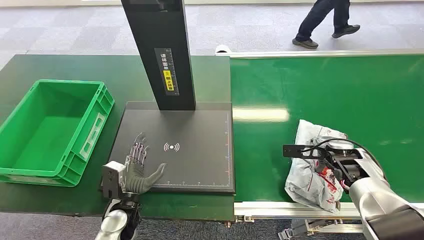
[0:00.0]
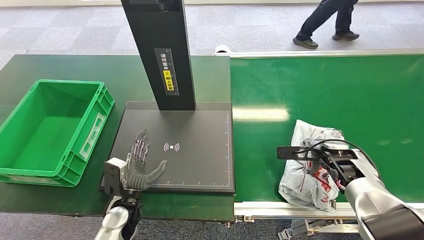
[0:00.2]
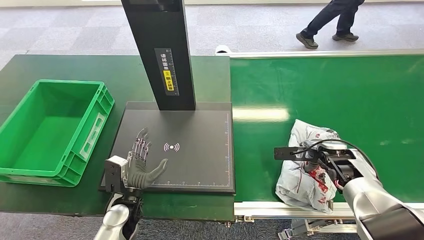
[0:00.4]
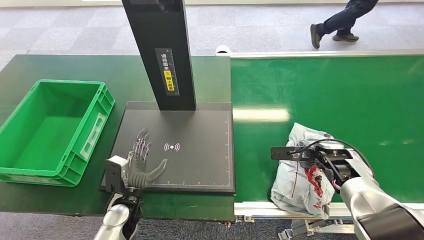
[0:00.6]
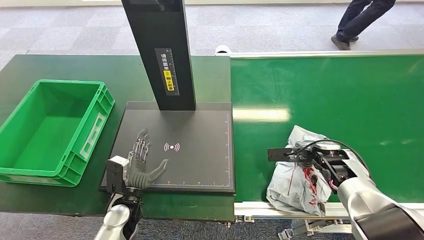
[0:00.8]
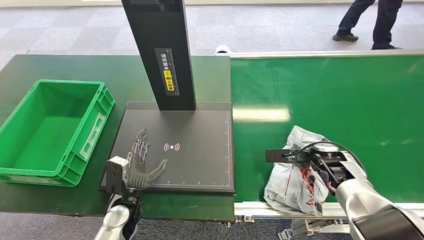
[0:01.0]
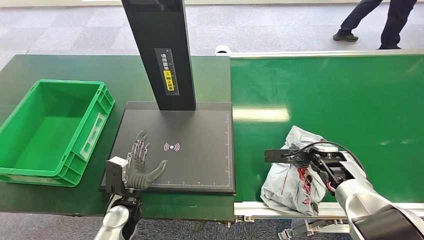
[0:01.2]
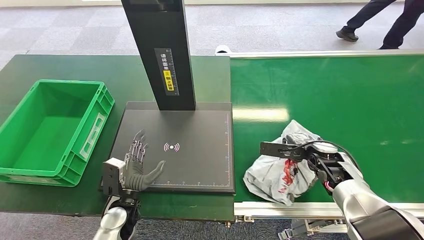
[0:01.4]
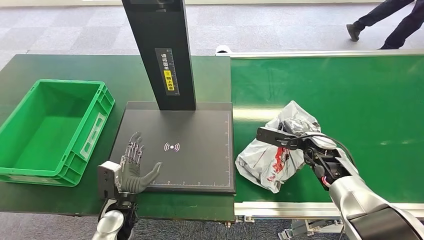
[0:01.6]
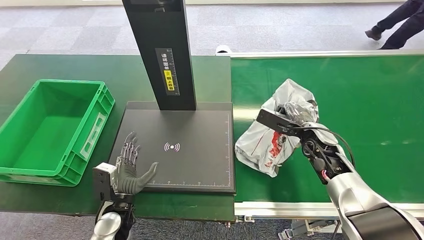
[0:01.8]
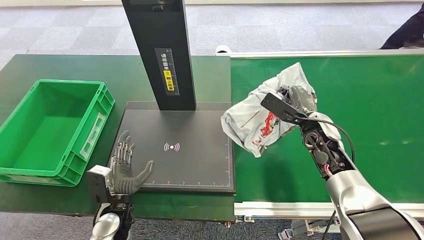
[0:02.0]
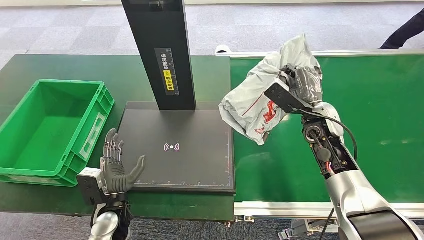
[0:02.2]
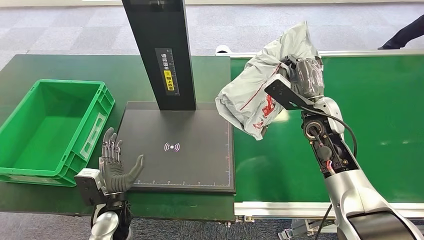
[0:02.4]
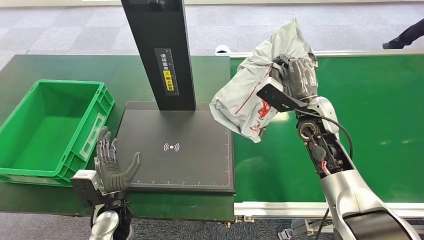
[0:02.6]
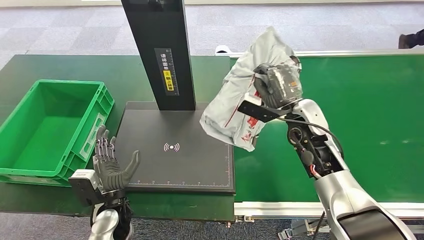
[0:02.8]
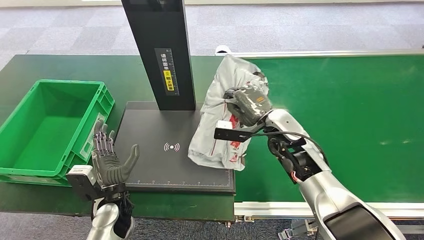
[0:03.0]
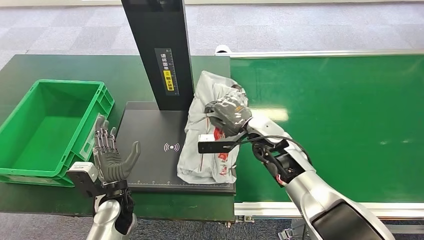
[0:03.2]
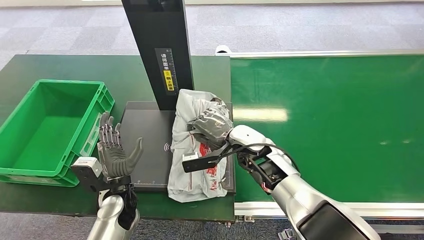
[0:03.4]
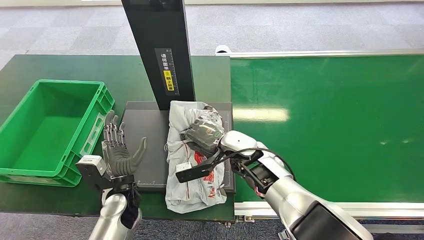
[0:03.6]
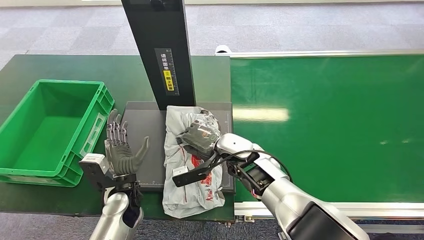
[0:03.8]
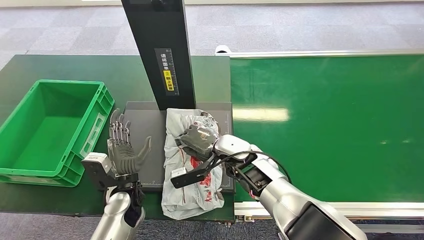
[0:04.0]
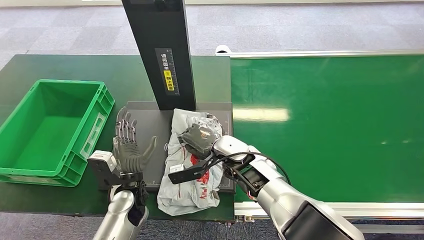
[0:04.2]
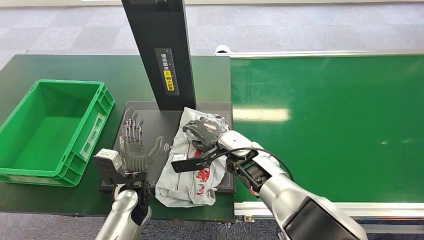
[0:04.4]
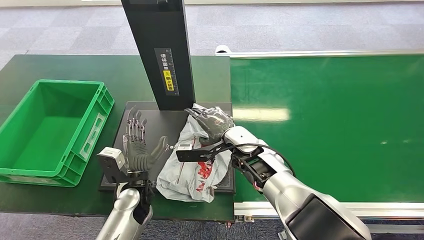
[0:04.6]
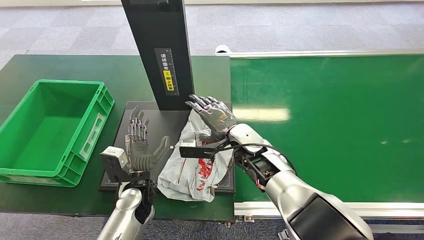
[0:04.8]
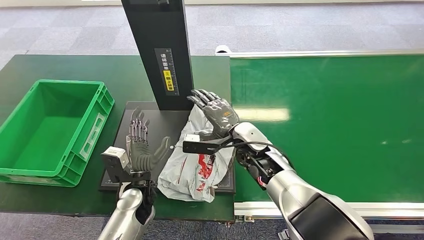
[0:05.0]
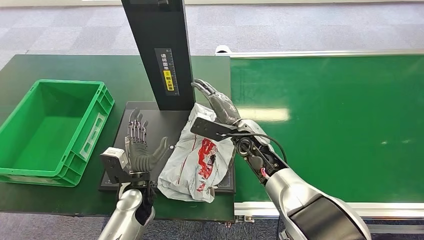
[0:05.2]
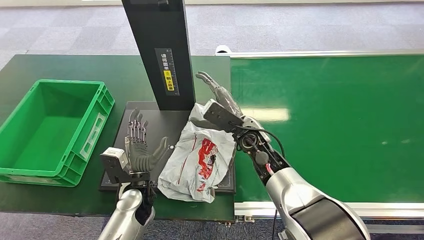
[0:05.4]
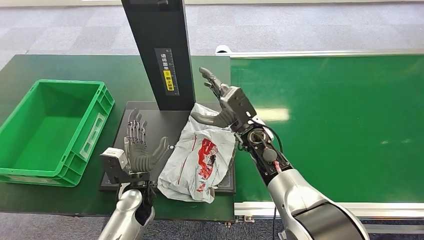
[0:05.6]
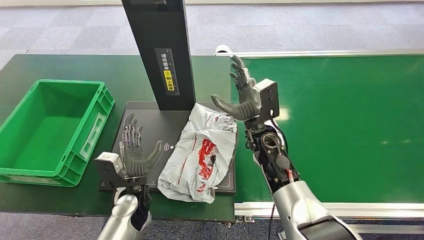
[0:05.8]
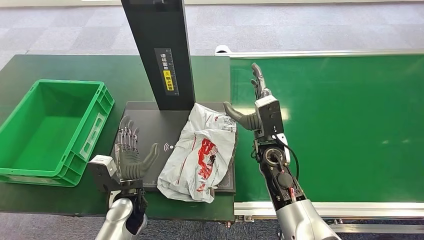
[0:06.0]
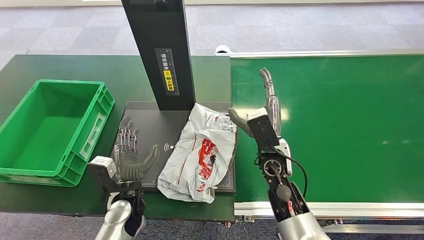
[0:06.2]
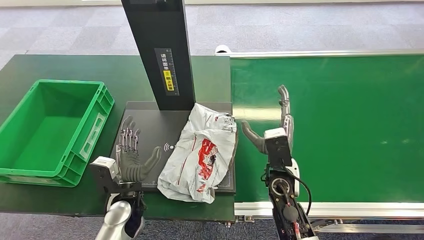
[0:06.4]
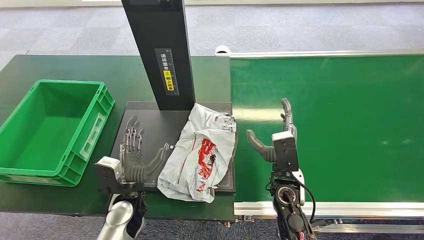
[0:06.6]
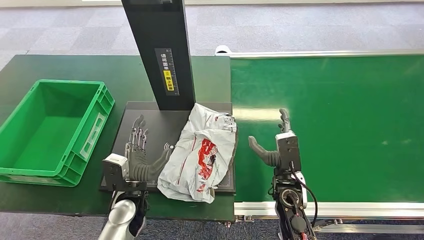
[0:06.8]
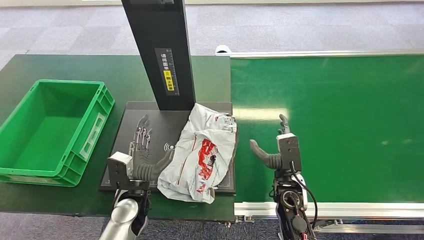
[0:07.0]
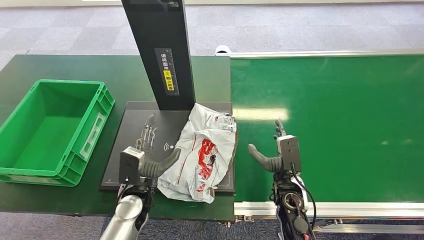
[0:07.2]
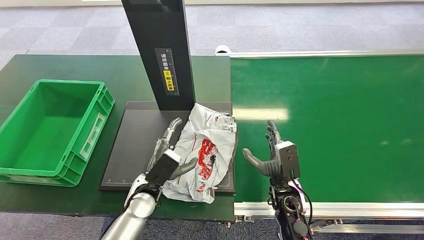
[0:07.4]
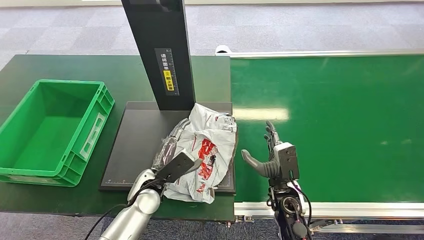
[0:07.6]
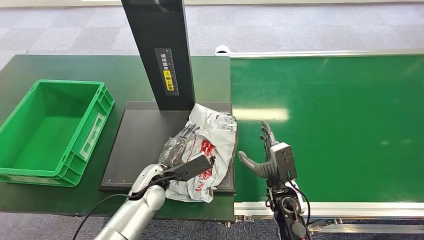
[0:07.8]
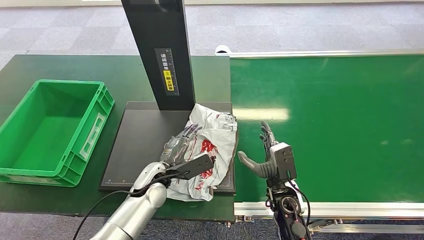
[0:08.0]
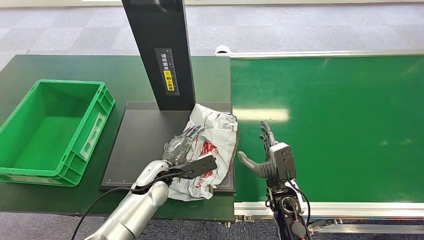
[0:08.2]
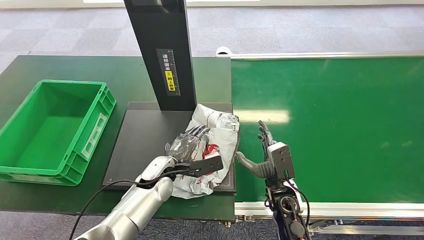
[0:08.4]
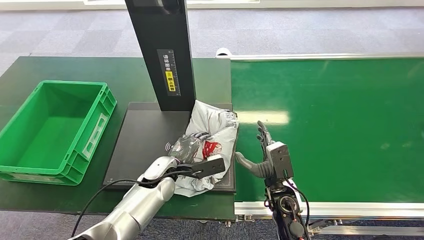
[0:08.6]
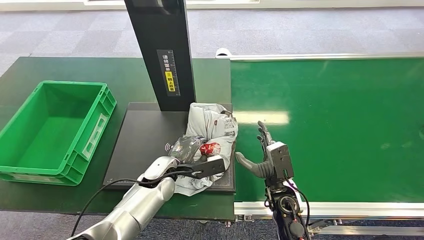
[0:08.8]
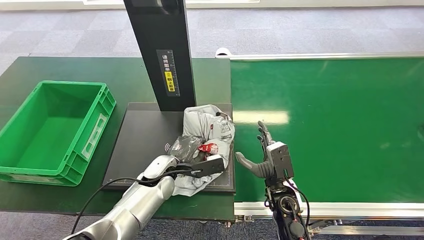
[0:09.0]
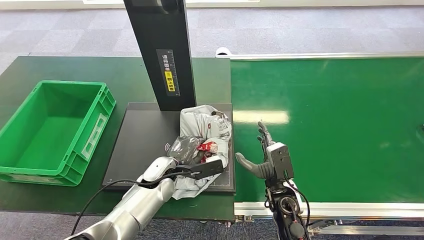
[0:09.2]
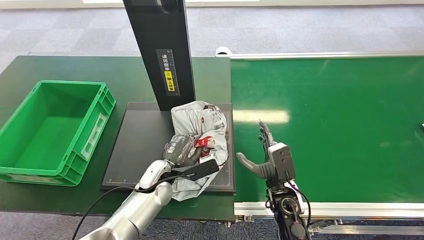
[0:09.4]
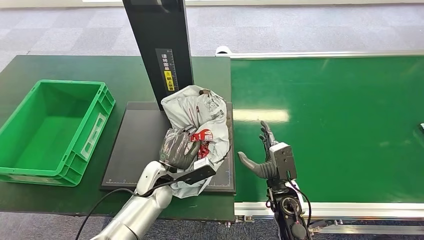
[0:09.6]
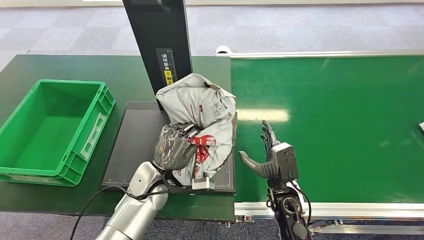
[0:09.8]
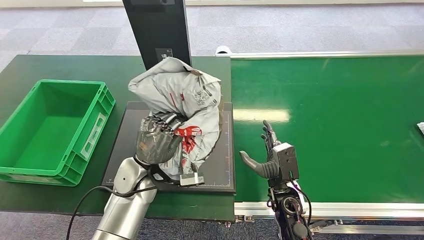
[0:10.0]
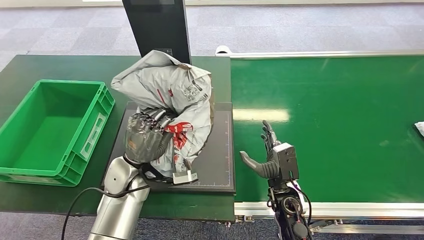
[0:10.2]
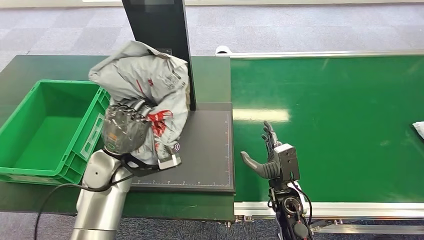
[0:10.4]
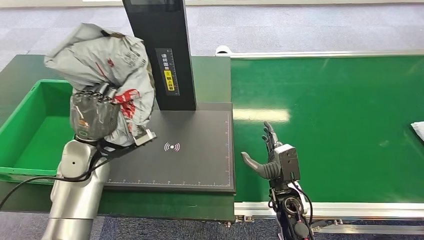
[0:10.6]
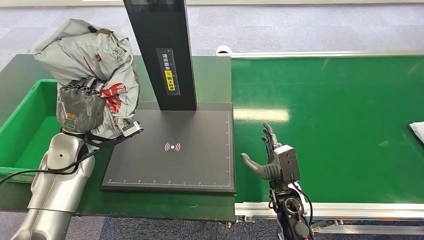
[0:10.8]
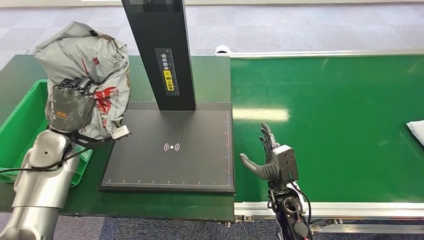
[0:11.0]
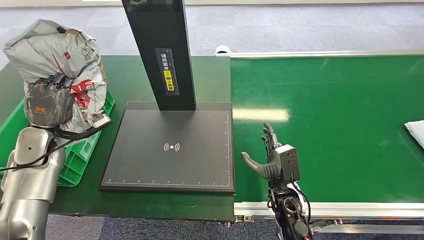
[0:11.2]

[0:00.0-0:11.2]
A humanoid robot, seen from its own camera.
Step, 0:00.0 to 0:02.2: Pick up the package from the conveyor belt.
Step, 0:02.4 to 0:05.6: Place the package onto the inbound machine.
Step, 0:05.8 to 0:10.6: Pick up the package from the inbound machine.
0:03.2 to 0:04.8: The left hand changes place by some 5 cm.
0:04.8 to 0:06.4: The right hand moves backward and to the right, some 10 cm.
0:06.4 to 0:08.0: The right hand goes approximately 5 cm downward. Meanwhile the left hand heads forward, covering about 5 cm.

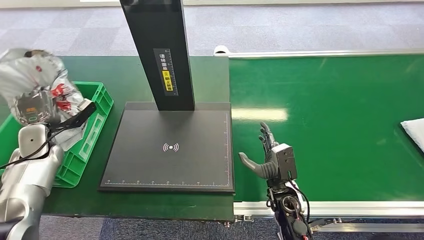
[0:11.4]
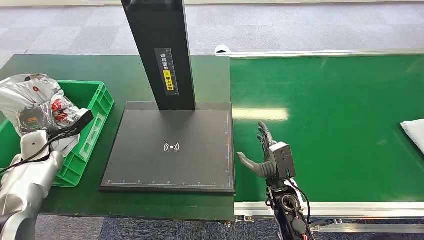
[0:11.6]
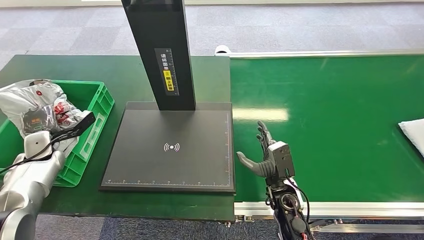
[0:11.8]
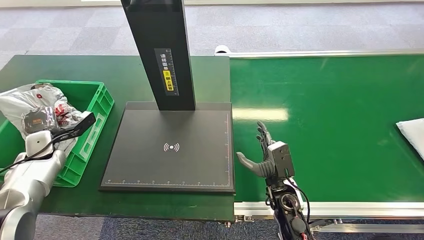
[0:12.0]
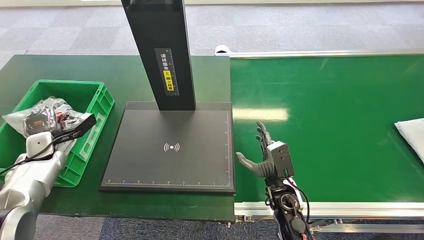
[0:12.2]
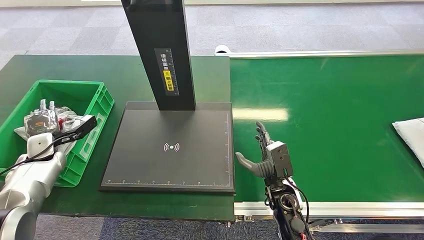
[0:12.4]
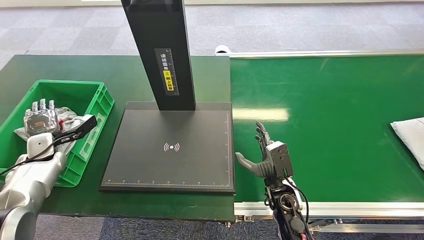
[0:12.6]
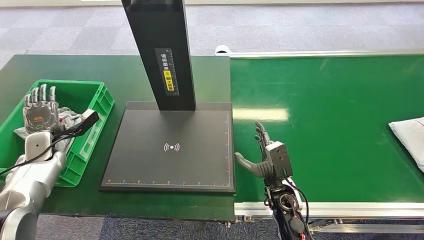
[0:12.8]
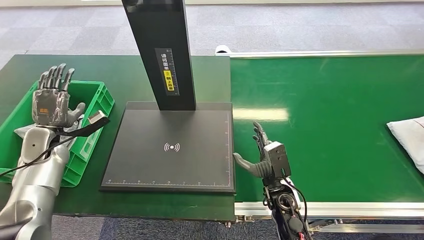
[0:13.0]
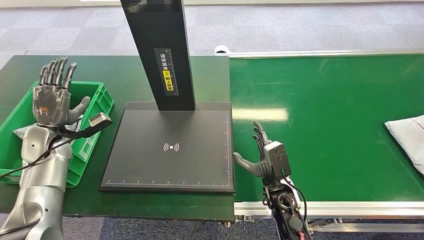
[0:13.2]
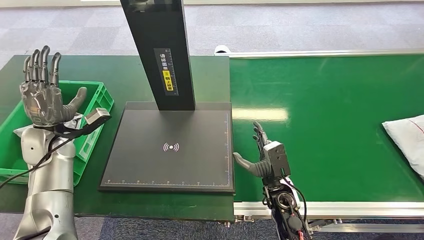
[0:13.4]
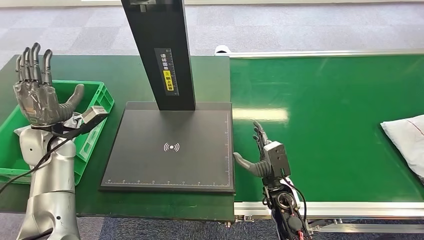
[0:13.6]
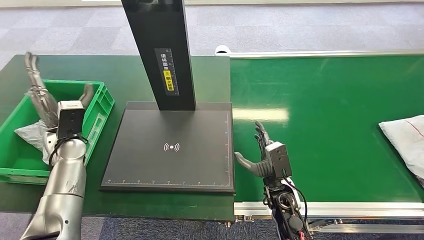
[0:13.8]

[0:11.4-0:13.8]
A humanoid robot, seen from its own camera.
Step, 0:11.4 to 0:13.8: Place the package into the parcel locker.
0:12.6 to 0:13.8: The left hand travels to the right and upward by some 10 cm.

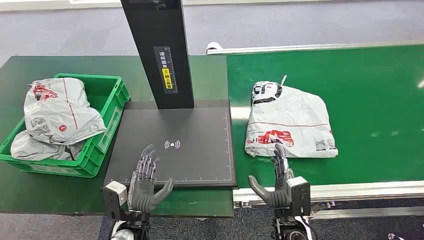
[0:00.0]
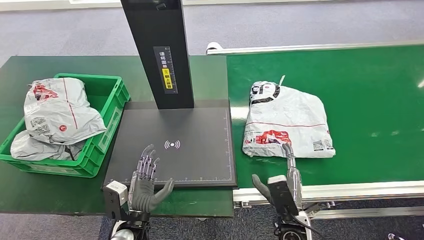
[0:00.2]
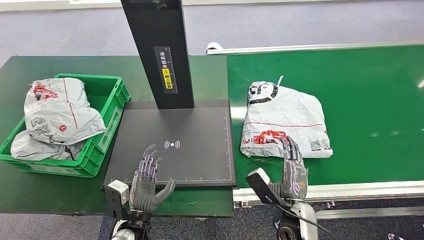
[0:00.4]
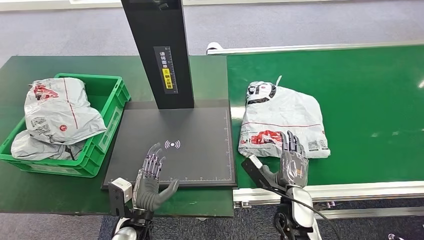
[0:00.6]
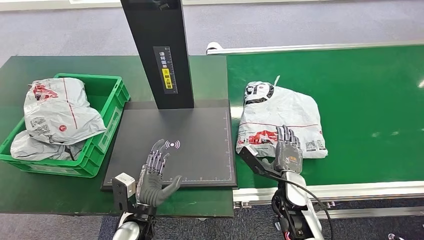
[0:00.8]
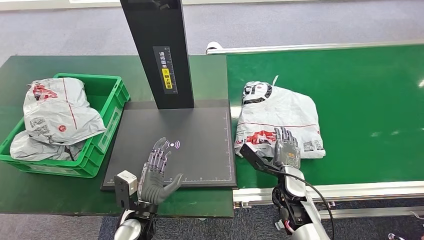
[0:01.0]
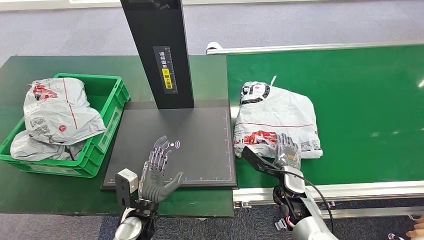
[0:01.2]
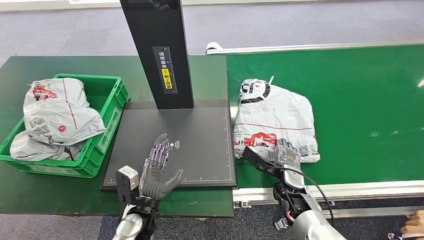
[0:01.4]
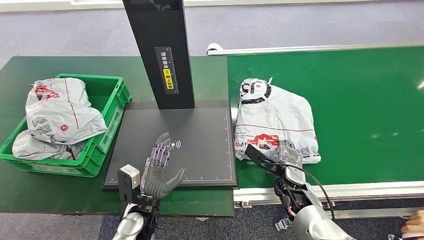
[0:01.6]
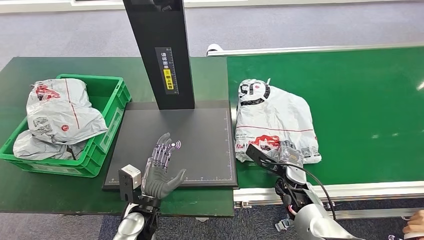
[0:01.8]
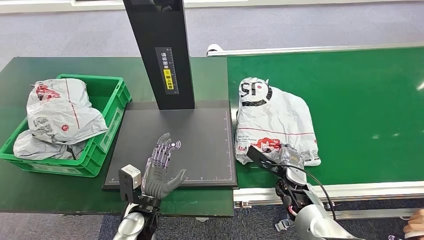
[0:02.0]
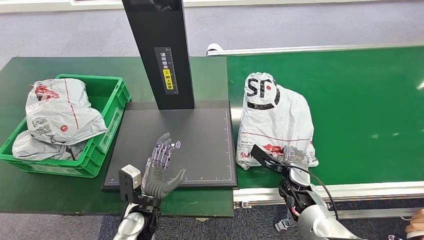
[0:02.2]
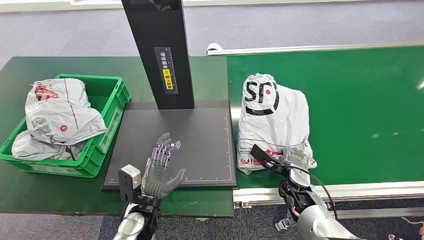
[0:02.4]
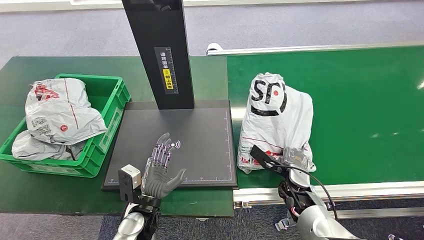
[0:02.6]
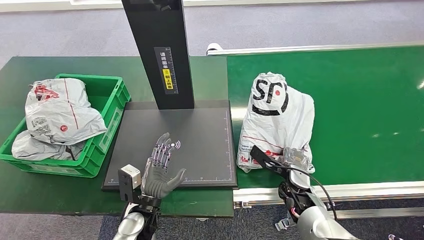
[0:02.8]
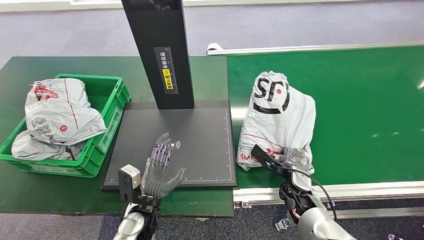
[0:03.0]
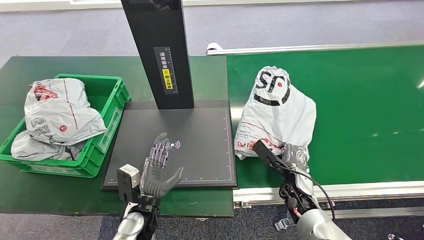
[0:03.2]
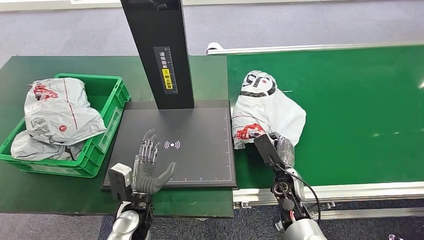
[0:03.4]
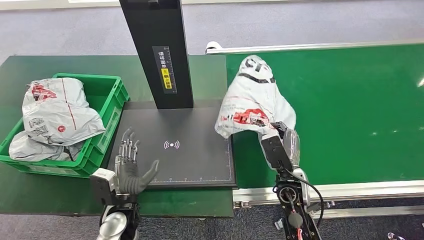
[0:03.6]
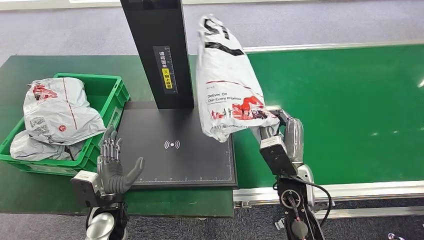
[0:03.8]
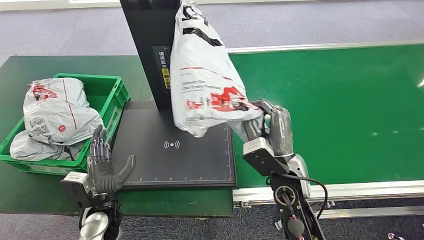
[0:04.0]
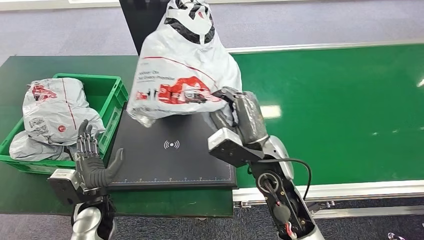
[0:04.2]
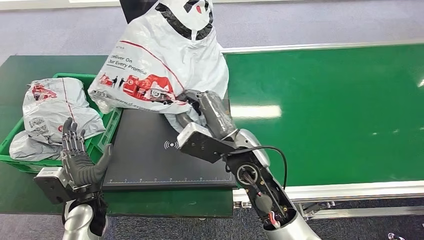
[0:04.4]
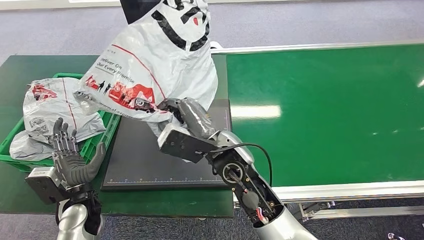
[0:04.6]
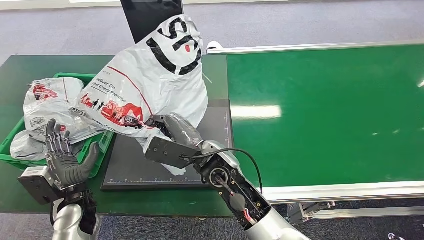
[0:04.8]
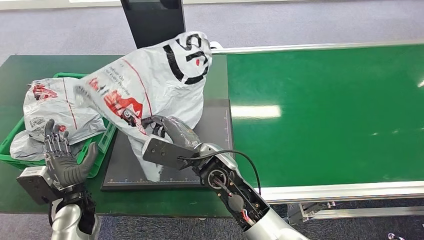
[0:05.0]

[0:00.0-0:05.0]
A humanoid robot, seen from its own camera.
Step, 0:00.0 to 0:04.4: Pick up the package from the conveyor belt.
